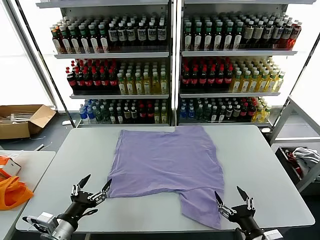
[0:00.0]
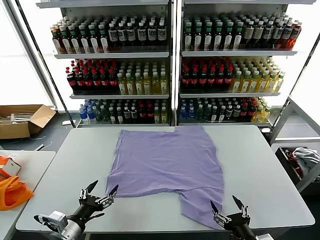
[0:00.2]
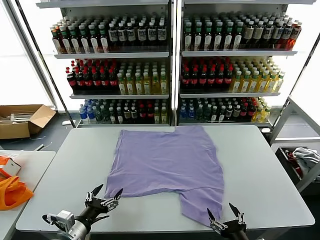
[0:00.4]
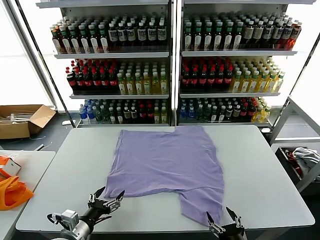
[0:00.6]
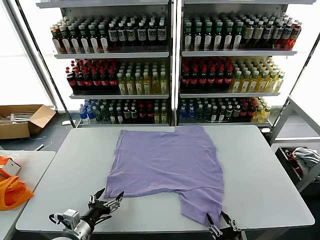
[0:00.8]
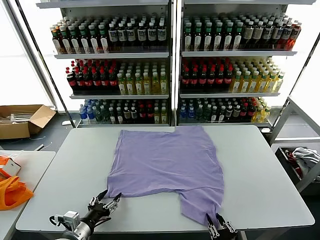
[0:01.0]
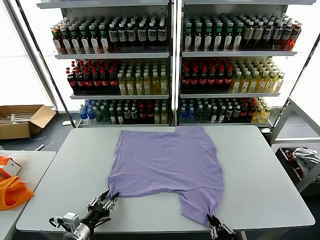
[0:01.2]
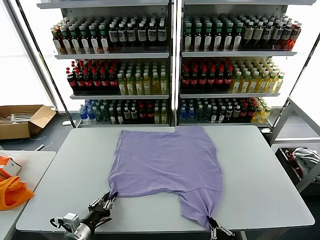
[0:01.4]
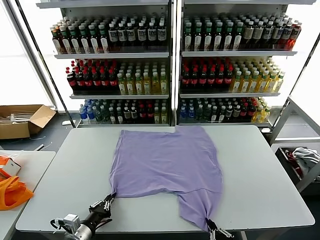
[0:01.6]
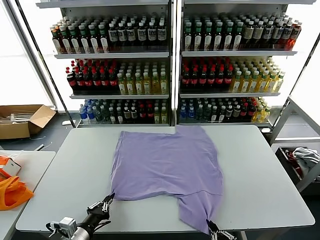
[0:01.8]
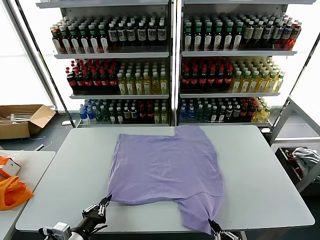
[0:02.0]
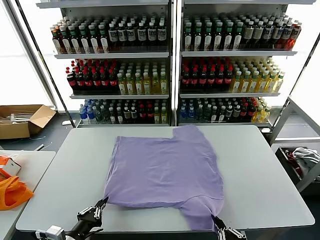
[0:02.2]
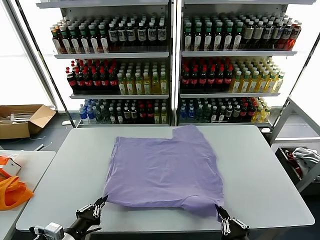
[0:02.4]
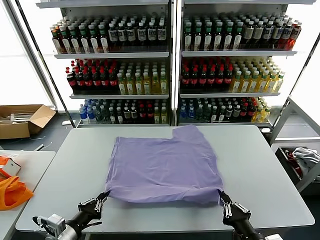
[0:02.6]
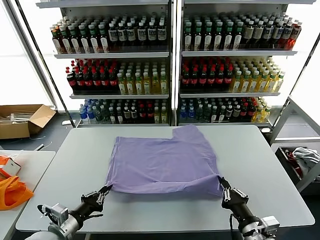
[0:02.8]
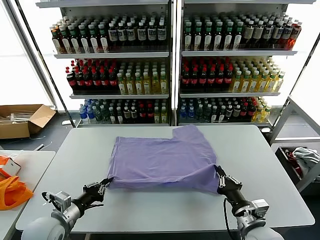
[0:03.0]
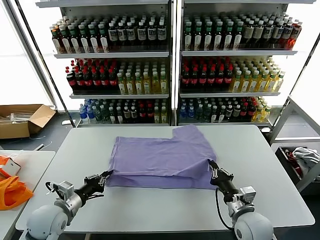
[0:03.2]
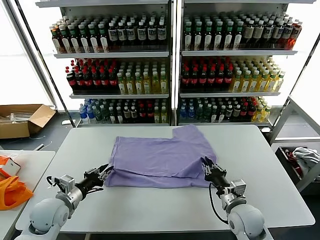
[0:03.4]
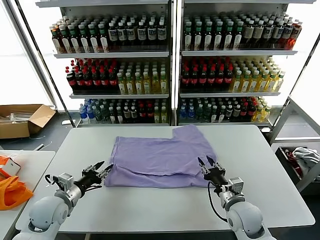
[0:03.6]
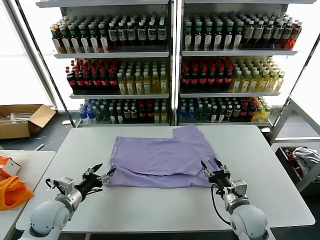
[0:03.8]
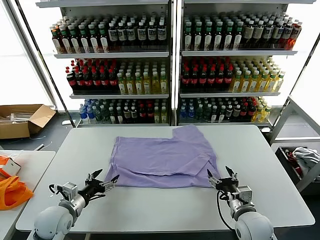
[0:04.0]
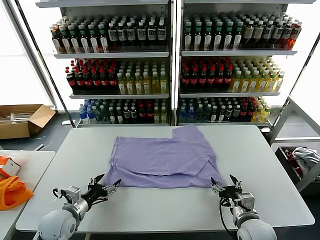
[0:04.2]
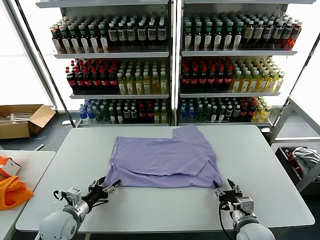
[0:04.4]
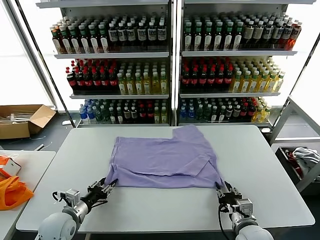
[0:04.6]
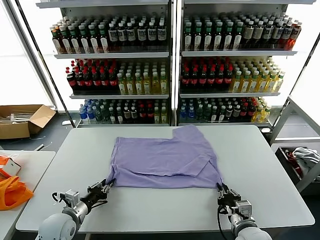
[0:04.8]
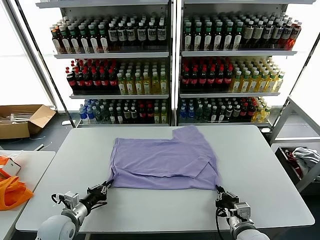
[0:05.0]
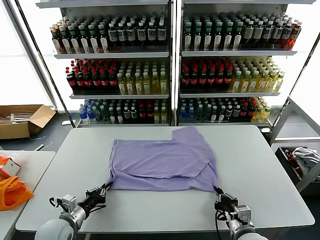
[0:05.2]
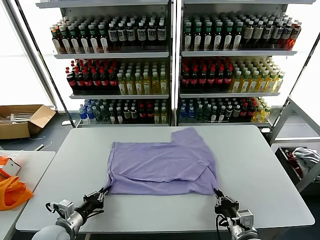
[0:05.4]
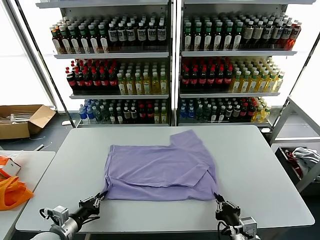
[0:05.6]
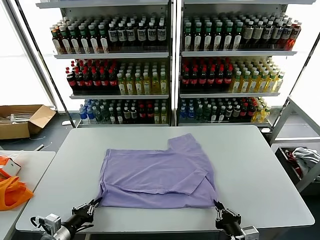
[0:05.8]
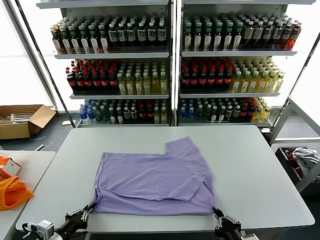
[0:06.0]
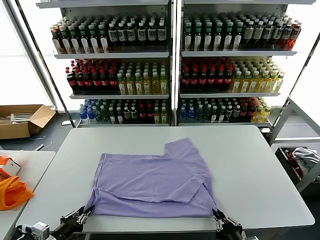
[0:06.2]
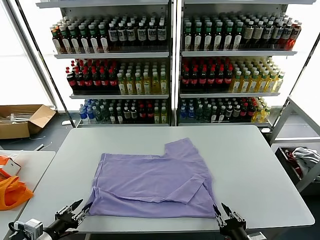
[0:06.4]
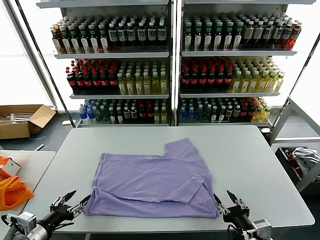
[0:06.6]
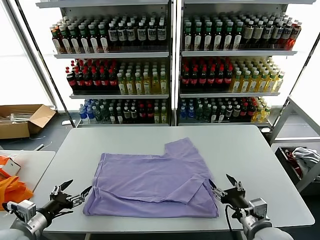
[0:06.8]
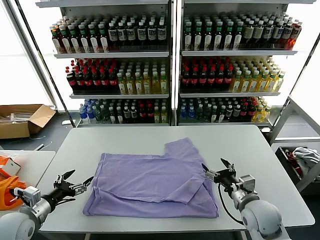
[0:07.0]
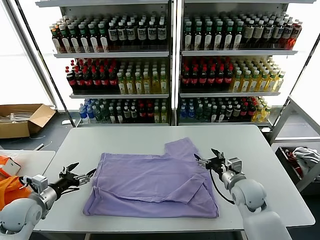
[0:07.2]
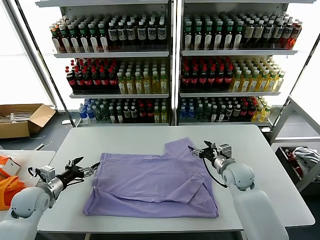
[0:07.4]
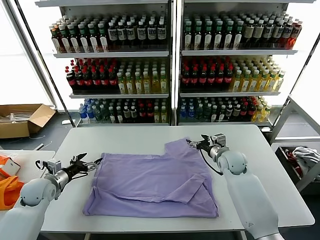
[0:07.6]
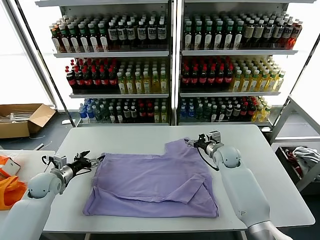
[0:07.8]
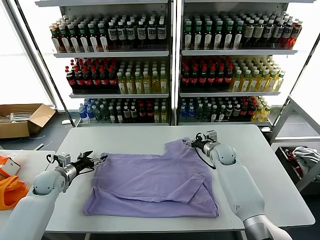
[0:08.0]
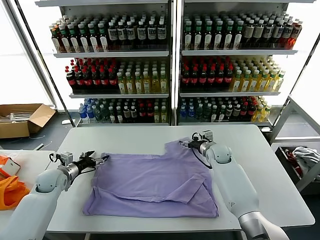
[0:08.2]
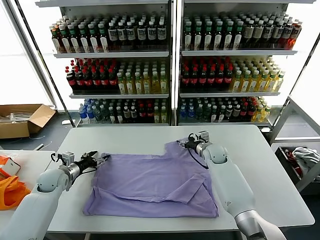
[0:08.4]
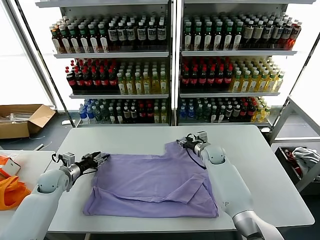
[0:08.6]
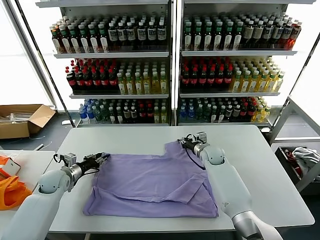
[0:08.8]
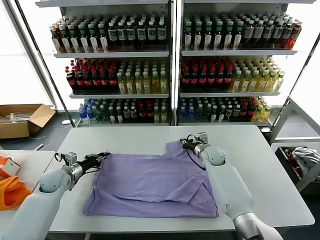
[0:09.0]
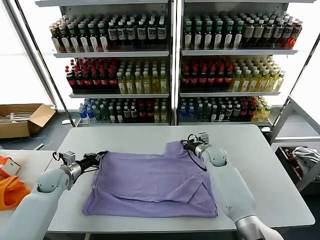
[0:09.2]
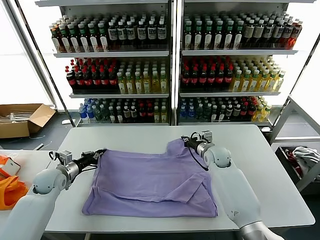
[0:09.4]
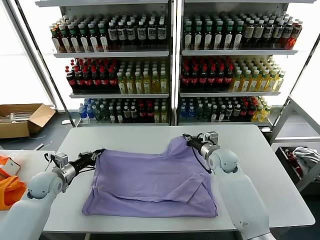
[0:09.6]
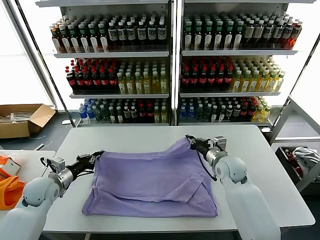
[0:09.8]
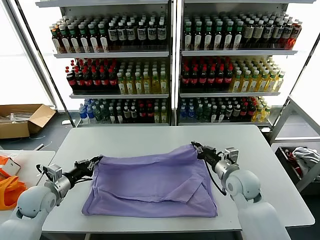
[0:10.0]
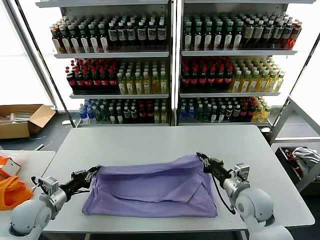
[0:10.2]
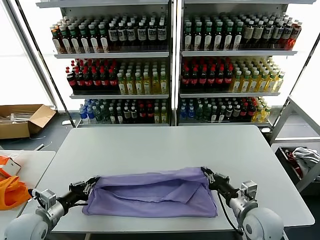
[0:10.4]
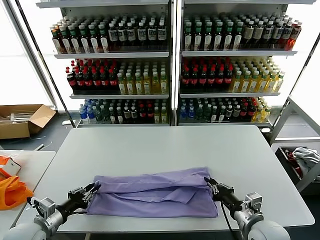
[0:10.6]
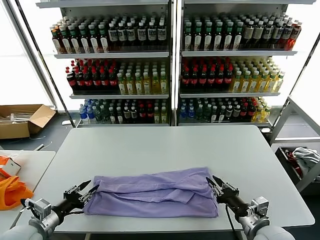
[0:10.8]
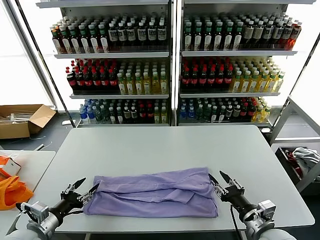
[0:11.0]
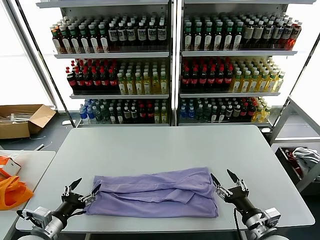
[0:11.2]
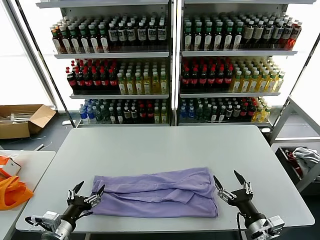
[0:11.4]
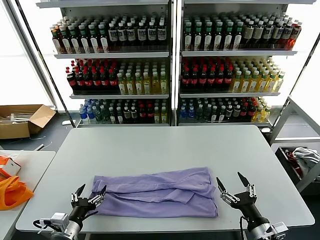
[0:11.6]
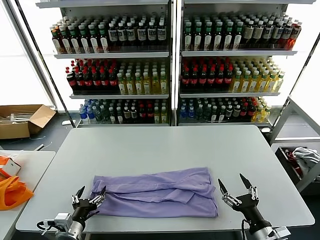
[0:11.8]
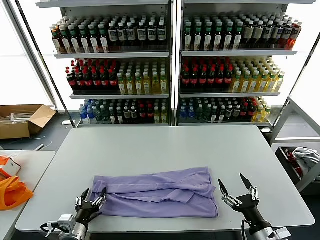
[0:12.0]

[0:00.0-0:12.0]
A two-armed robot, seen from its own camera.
Task of the whole recording: fold and organize the clothes.
Step, 0:00.0 to 0:01.4: use both grippers simultaneously to clamp the lower edge of the clothing fabric.
Step, 0:01.8 to 0:03.6: use both grippers to drag the lower edge of the fabric forward and fold it over the upper edge.
Step, 0:03.8 to 0:06.4: Drag the clothes downward with both gripper.
Step, 0:06.6 to 0:09.0: use both grippers simultaneously to clamp the upper edge of the clothing fabric.
Step, 0:09.2 to 0:10.8: use both grippers to drag the upper edge of the fabric backward and fold it over the lower edge.
0:01.6 to 0:03.0: The right gripper travels forward by roughly 15 cm, while the left gripper goes approximately 10 cm forward and upward.
0:03.0 to 0:04.4: The left gripper shifts approximately 5 cm downward, and opens its fingers, while the right gripper opens up.
0:04.4 to 0:06.0: Both grippers travel together backward, approximately 10 cm. The left gripper closes up. Meanwhile the right gripper closes.
0:06.0 to 0:07.6: The left gripper travels forward by some 20 cm, and opens, while the right gripper heads forward, covering some 40 cm, and opens its fingers.
0:07.6 to 0:09.0: The right gripper ends up about 5 cm from where it was, and closes its fingers, while the left gripper ends up some 5 cm from where it was, and closes its fingers.
0:09.0 to 0:10.4: The left gripper travels backward by approximately 20 cm; the right gripper travels backward by roughly 30 cm.
0:10.4 to 0:12.0: The left gripper shifts some 15 cm to the right, downward and backward, and opens. The right gripper heads backward, covering some 10 cm, and opens.

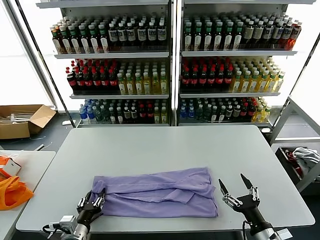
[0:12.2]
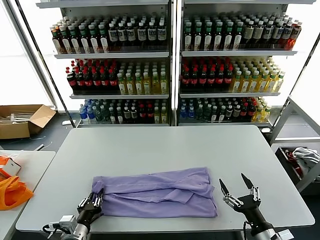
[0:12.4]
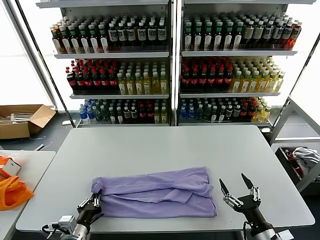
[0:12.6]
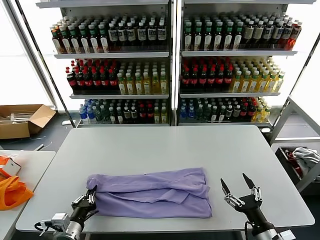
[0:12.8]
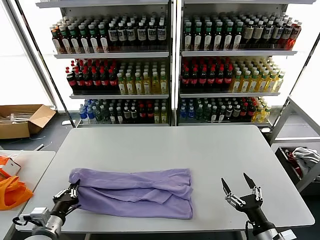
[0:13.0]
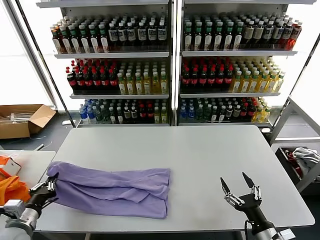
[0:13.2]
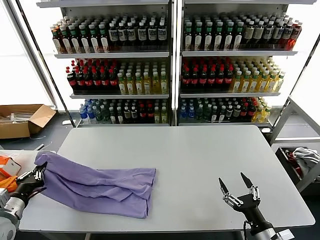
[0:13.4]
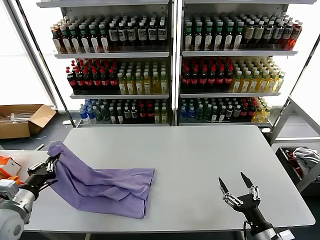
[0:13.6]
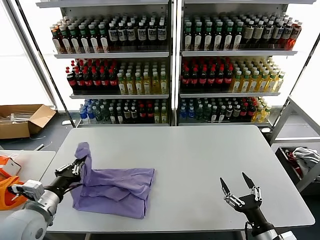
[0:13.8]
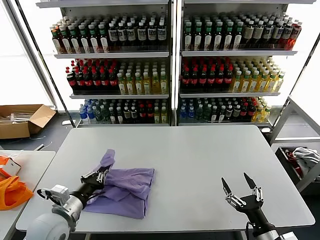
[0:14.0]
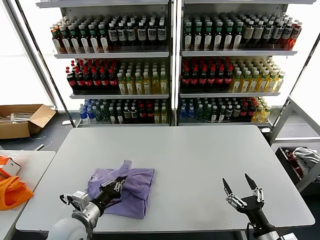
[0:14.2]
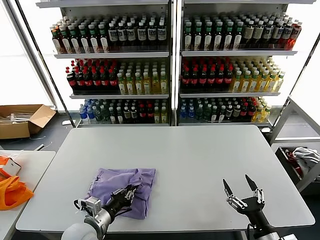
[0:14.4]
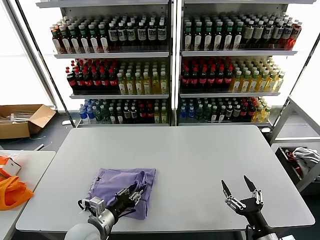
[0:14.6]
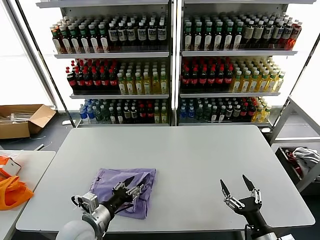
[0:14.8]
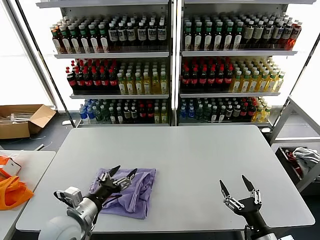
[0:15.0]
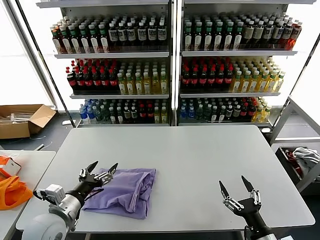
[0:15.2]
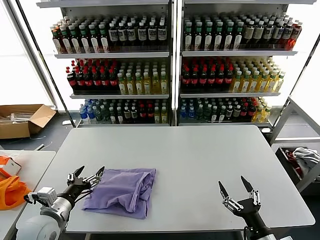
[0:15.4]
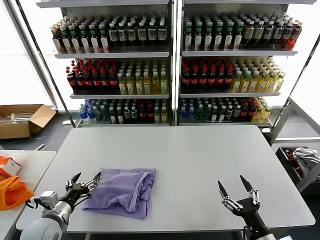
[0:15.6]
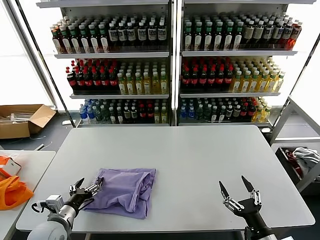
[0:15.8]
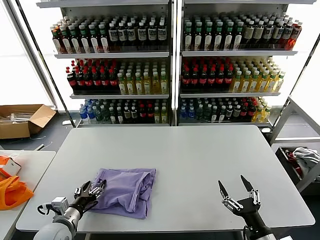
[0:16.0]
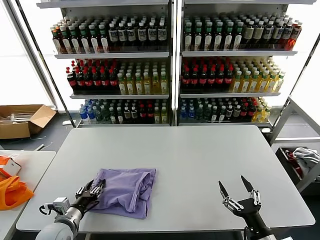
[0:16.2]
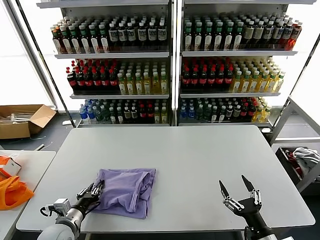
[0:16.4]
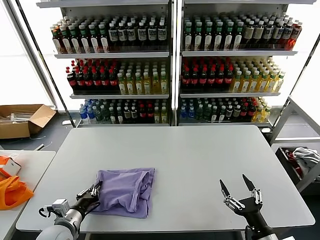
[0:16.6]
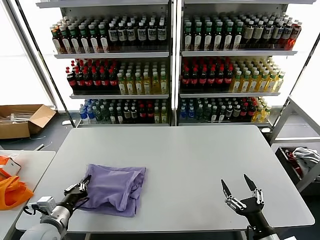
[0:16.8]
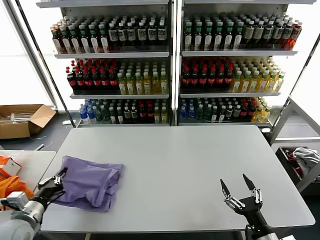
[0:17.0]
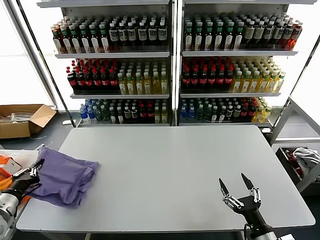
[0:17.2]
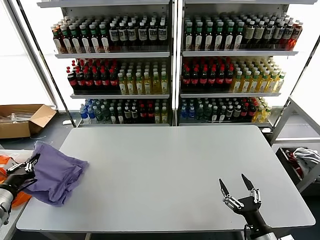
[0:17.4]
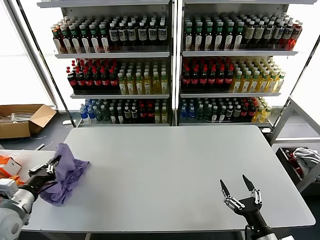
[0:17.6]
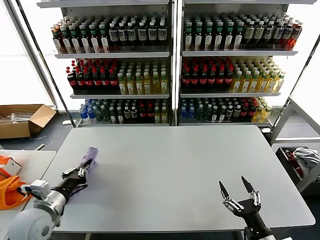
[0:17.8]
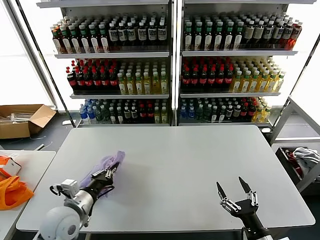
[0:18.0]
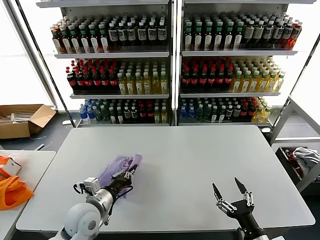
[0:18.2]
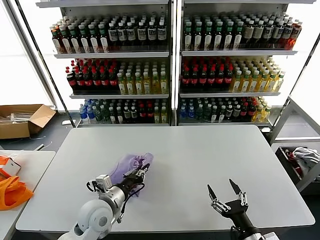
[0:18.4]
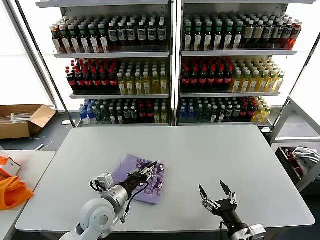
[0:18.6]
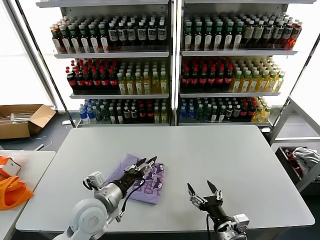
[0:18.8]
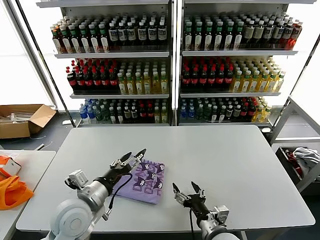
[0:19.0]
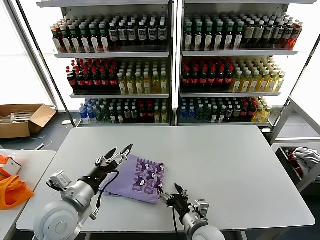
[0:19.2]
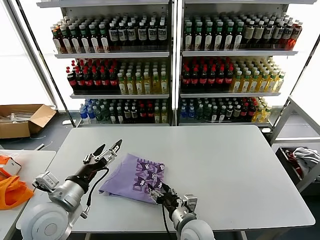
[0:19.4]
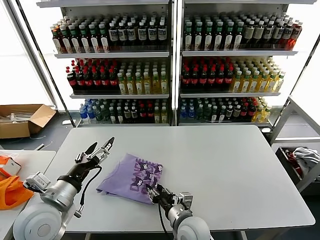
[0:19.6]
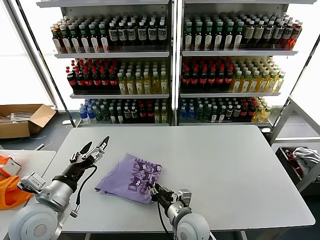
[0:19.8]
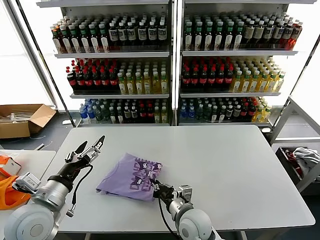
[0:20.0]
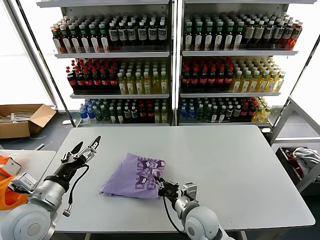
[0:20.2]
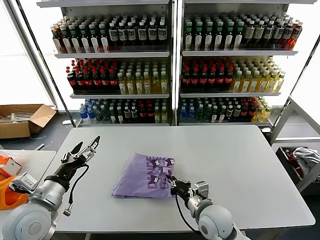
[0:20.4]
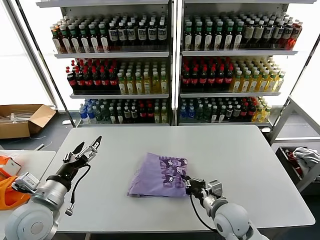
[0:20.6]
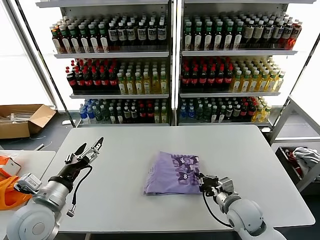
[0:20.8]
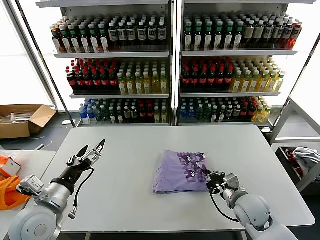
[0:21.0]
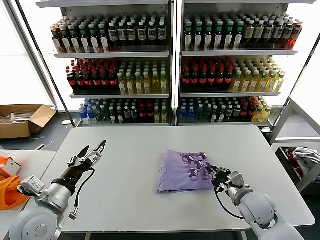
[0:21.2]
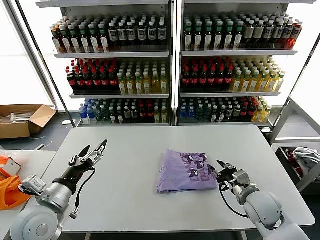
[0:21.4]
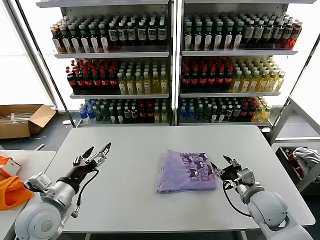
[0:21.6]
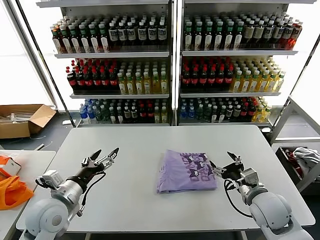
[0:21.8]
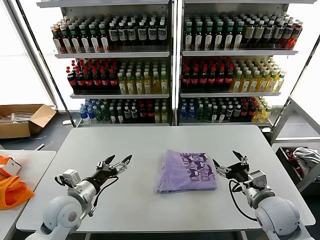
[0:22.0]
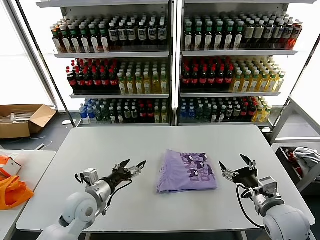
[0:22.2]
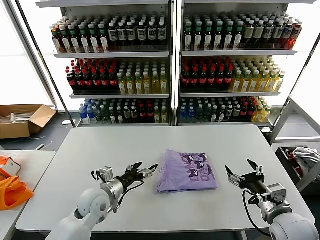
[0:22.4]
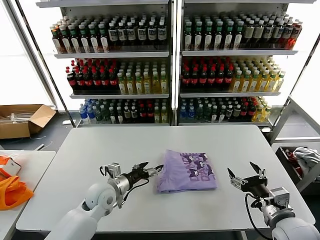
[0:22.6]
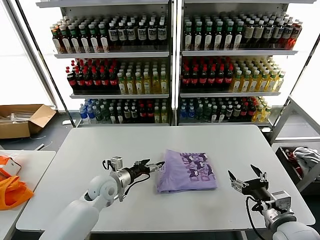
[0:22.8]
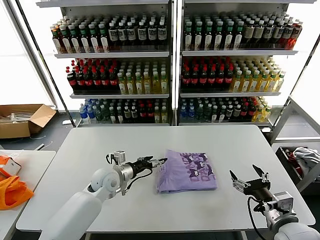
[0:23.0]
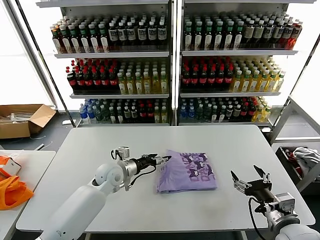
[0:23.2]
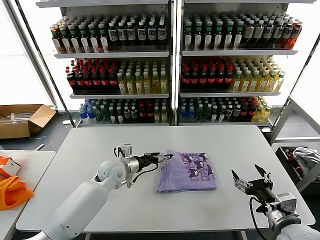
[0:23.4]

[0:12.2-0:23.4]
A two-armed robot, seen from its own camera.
Task of the whole recording: fold and organize the clothes.
Step, 0:12.8 to 0:14.8: use the left gripper to drag the left edge of the fabric to the left and folds it over the right edge.
Step, 0:15.0 to 0:18.6: Flip the folded clothes over with left gripper.
0:12.2 to 0:13.8: The left gripper moves upward and to the left, some 15 cm, and closes up.
0:13.8 to 0:15.4: The left gripper goes to the right and returns, some 10 cm each way, and opens up.
0:15.4 to 0:17.0: The left gripper goes roughly 5 cm to the left, and closes its fingers.
0:17.0 to 0:18.6: The right gripper travels to the left by some 5 cm. Meanwhile the left gripper goes some 20 cm to the right, and opens up.
0:18.6 to 0:20.2: The left gripper heads to the left, upward and backward, covering roughly 15 cm, and opens. Meanwhile the right gripper goes some 20 cm to the left and forward, and closes its fingers.
0:20.2 to 0:21.8: The right gripper shifts approximately 20 cm to the right, and opens, while the left gripper moves approximately 5 cm.
0:21.8 to 0:23.4: The right gripper goes some 10 cm backward. The left gripper travels forward, to the right and downward by roughly 25 cm.
